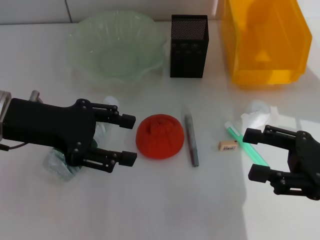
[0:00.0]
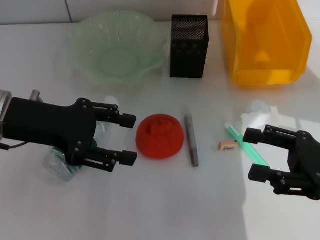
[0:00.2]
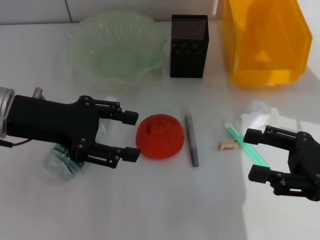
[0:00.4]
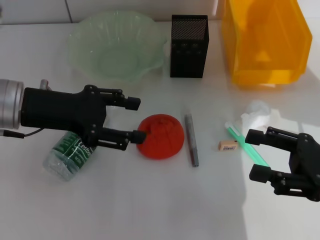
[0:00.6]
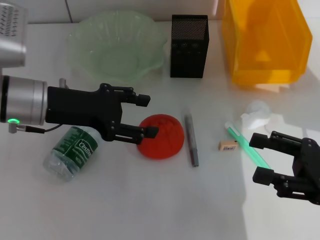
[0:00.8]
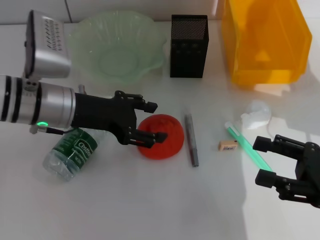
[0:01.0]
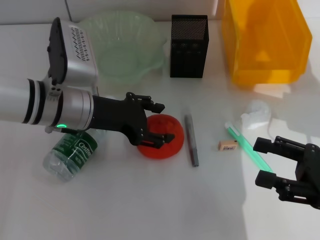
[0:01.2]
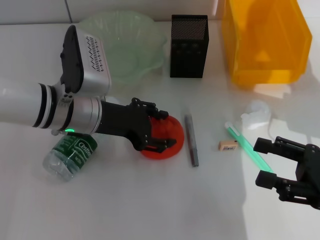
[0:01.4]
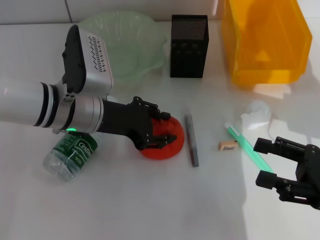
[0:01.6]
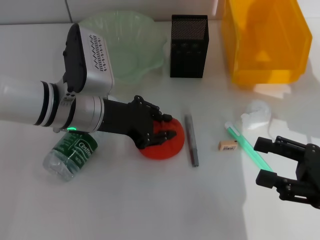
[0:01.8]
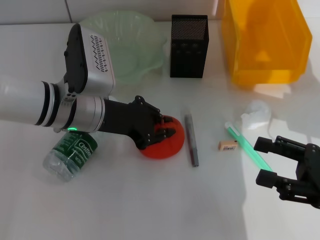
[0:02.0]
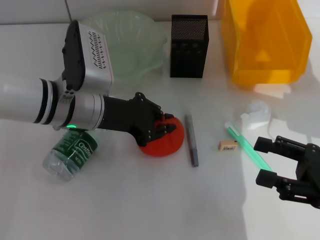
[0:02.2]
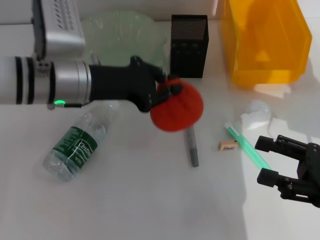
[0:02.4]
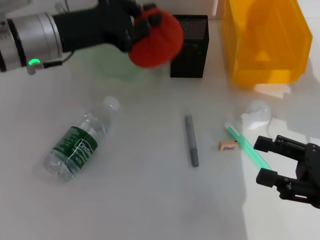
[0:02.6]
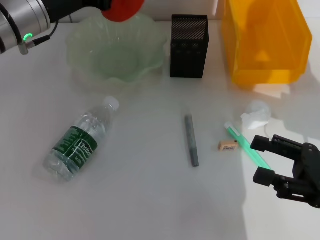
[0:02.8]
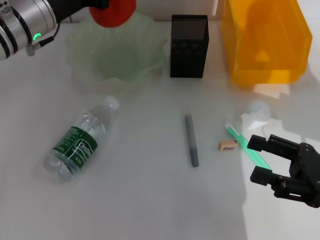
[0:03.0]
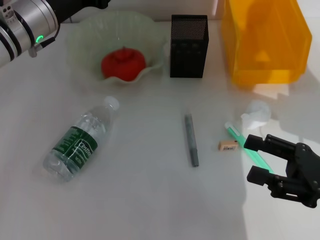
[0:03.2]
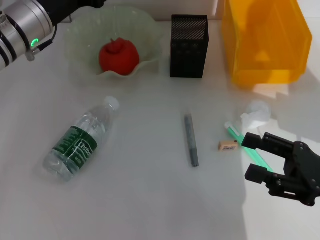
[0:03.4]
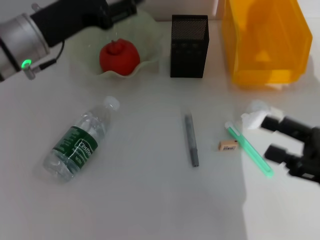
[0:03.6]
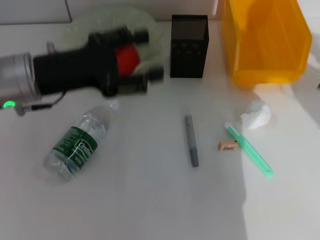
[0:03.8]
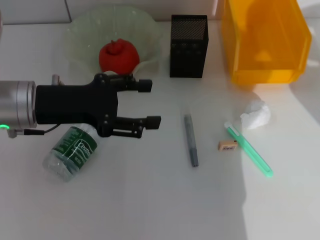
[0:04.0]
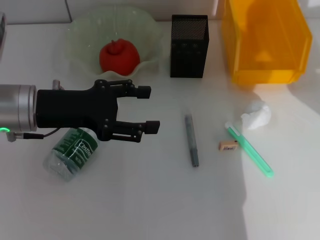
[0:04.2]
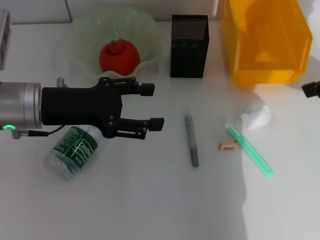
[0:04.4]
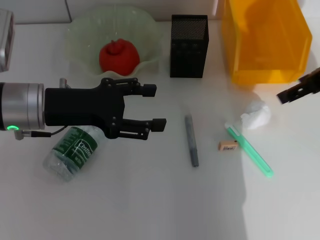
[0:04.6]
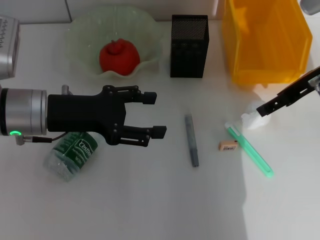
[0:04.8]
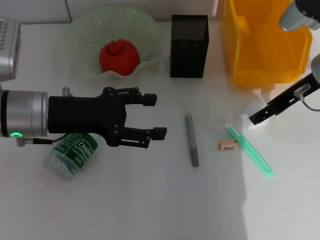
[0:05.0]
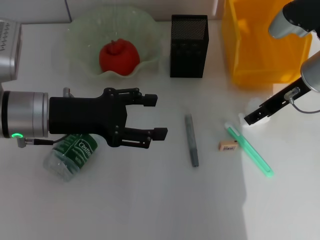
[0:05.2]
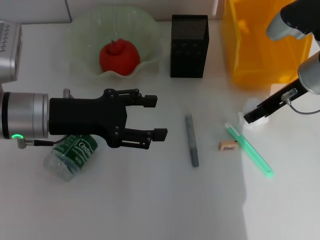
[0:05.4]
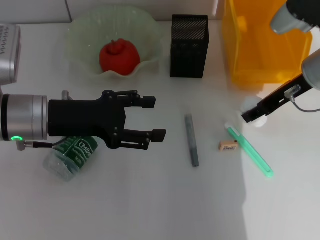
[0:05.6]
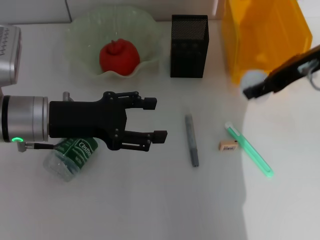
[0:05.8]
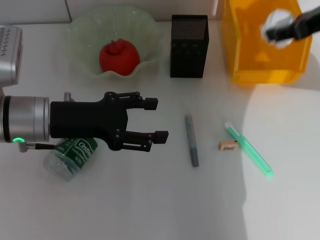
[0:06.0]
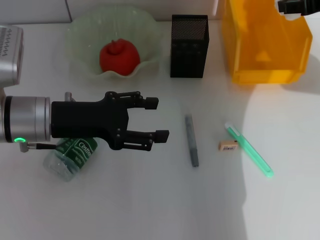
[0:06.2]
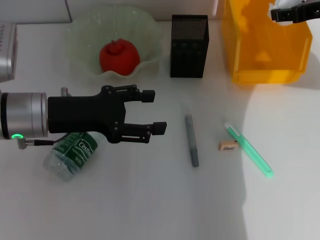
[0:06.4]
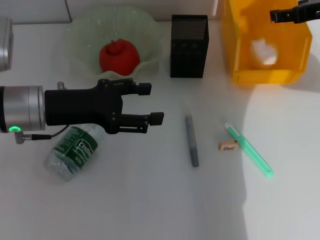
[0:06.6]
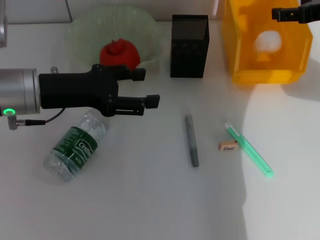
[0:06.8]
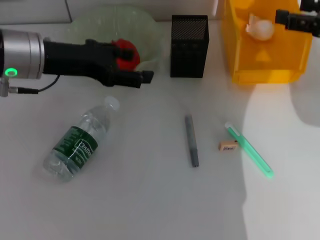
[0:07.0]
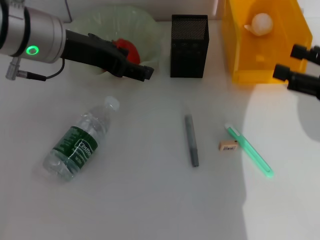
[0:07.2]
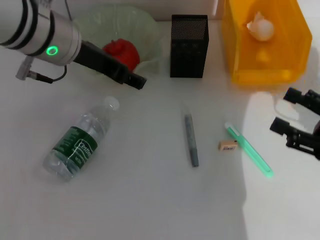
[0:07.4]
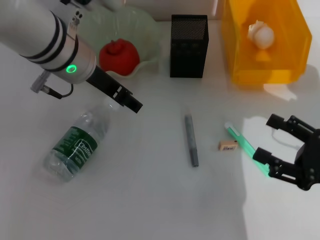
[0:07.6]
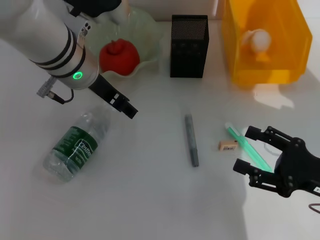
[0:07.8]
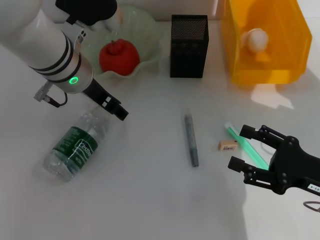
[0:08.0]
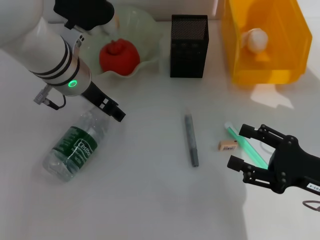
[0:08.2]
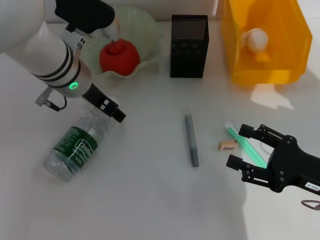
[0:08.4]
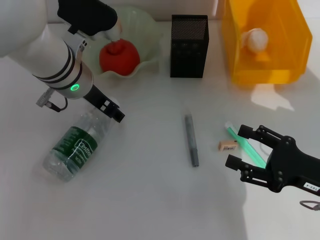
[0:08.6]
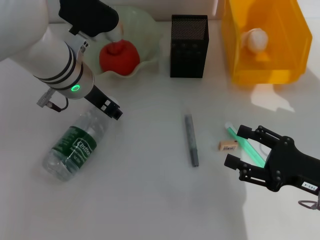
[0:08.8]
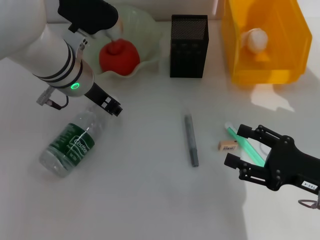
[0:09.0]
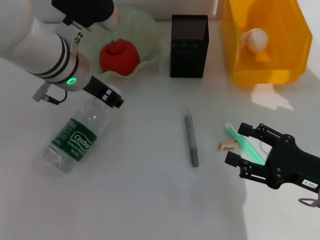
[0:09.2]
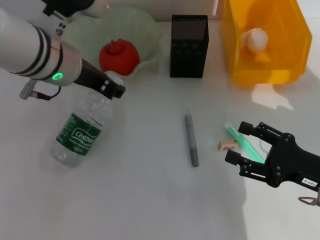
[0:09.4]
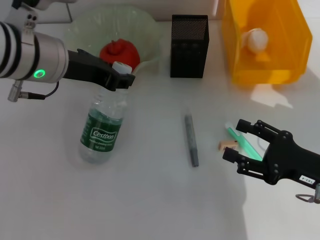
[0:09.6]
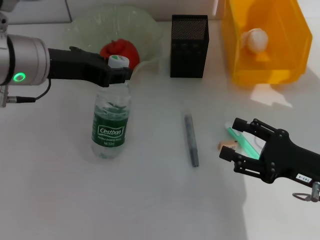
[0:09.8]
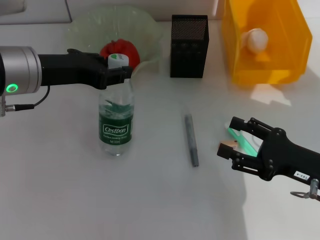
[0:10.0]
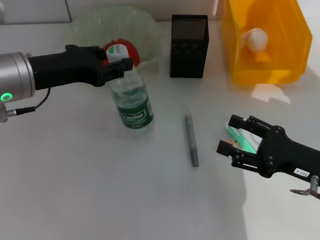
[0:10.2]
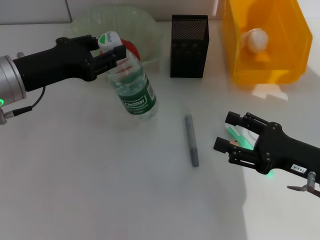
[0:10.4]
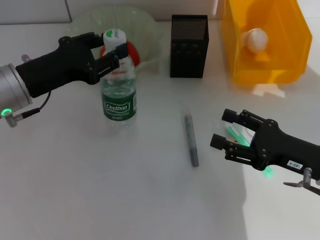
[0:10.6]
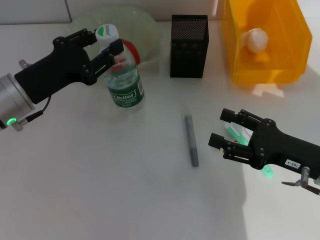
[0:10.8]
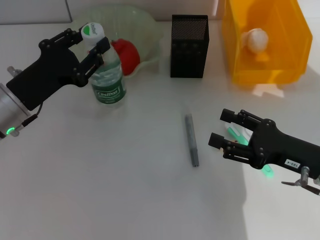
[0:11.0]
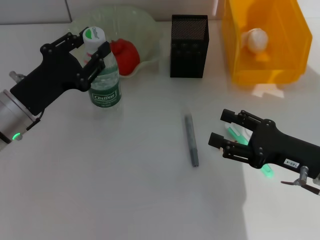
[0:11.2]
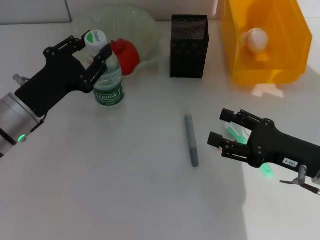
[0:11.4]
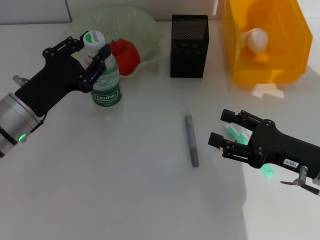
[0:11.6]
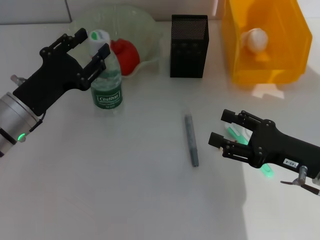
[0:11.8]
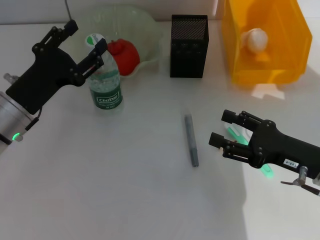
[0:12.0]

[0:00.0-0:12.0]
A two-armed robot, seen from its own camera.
Step, 0.0 to 2.0 s: Grab the orange with the left hand.
Step, 2.2 to 3.4 s: Place the orange into the fruit bowl with the left hand.
Step, 3.6 to 5.4 s: Grab the paper ball with the right hand.
Step, 5.6 to 6.6 s: Place the paper ball into the trash can with the right hand.
Step, 6.8 to 8.8 s: Grab the water bottle with the left hand.
Step, 9.0 to 11.8 s: Place the water bottle on the table with the left hand.
0.0 to 1.6 s: The left gripper moves to the right and downward, some 10 cm.
1.6 to 3.0 s: The left gripper goes approximately 10 cm forward, upward and to the left, and closes up.
3.0 to 4.4 s: The right gripper is displaced upward and forward by approximately 20 cm. Meanwhile the left gripper moves backward, about 10 cm, and opens up.
4.4 to 6.0 s: The right gripper is displaced forward by approximately 5 cm, reaches some 15 cm downward, then returns, and closes.
6.0 to 7.6 s: The left gripper travels upward, to the right and forward by roughly 15 cm, while the right gripper travels downward and backward by some 25 cm, and opens its fingers.
7.6 to 9.0 s: The left gripper moves downward, some 5 cm, and closes its fingers.
9.0 to 10.4 s: The left gripper is displaced to the left and backward by roughly 10 cm.
10.4 to 12.0 s: The left gripper shifts approximately 10 cm downward.

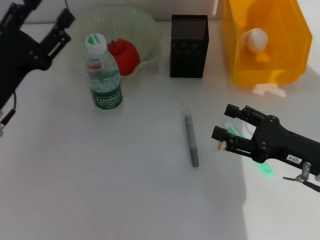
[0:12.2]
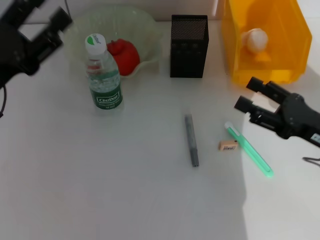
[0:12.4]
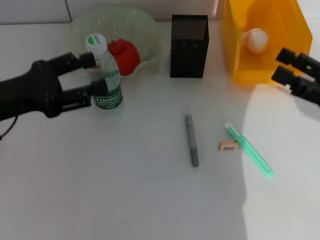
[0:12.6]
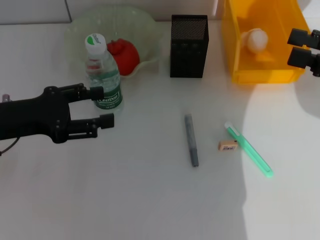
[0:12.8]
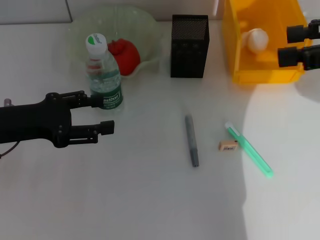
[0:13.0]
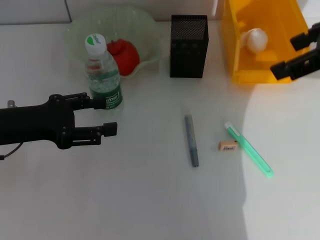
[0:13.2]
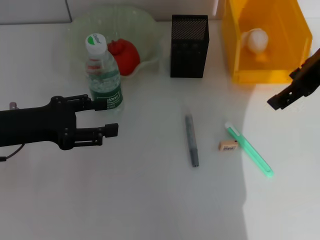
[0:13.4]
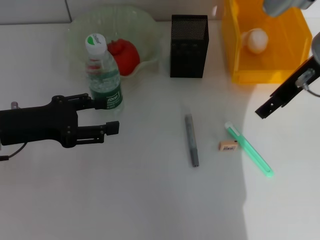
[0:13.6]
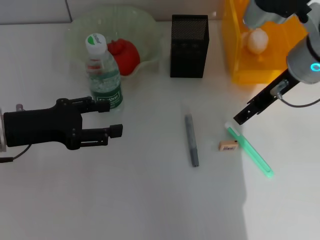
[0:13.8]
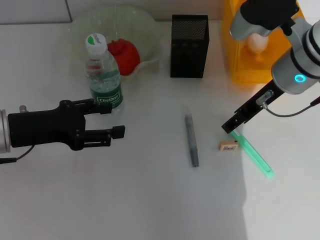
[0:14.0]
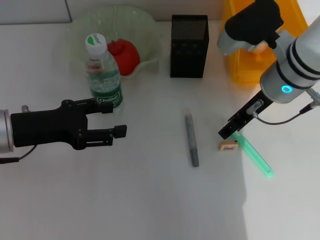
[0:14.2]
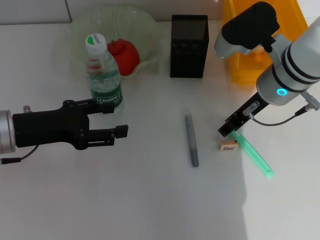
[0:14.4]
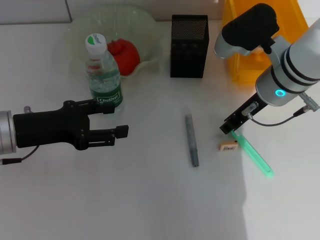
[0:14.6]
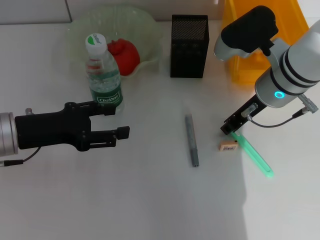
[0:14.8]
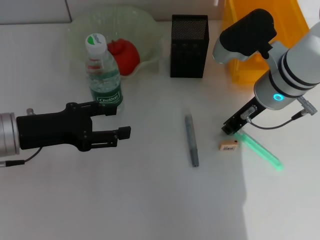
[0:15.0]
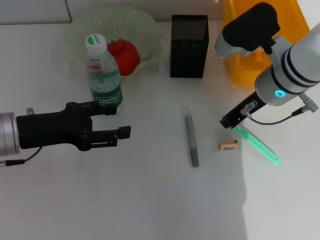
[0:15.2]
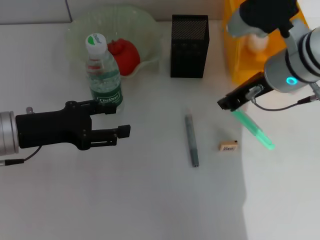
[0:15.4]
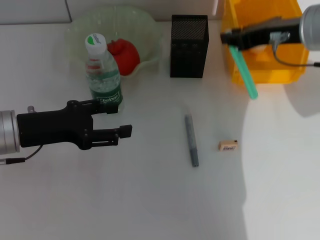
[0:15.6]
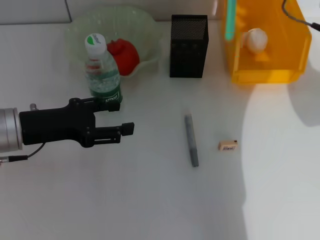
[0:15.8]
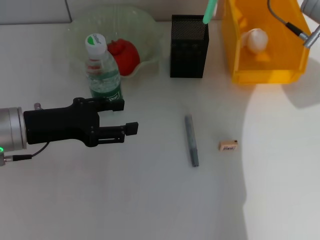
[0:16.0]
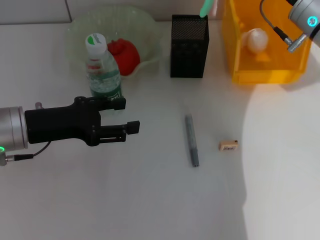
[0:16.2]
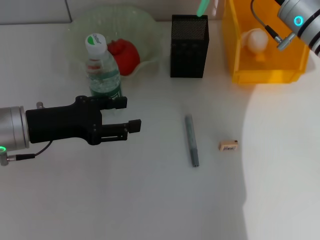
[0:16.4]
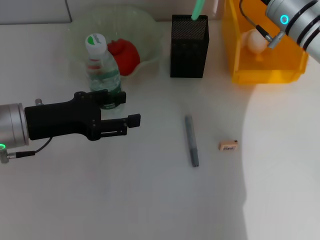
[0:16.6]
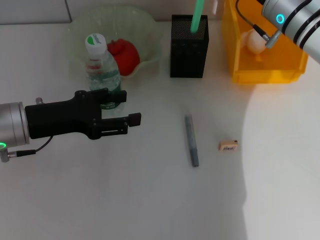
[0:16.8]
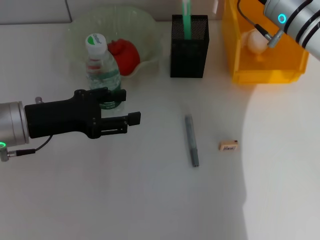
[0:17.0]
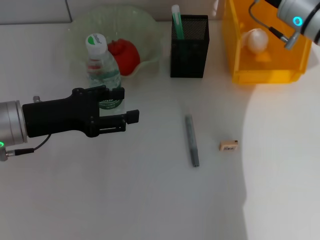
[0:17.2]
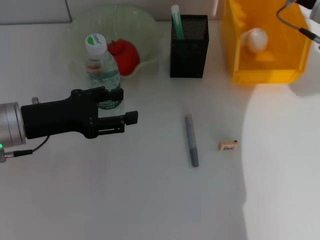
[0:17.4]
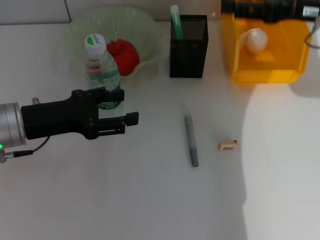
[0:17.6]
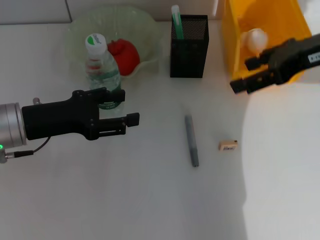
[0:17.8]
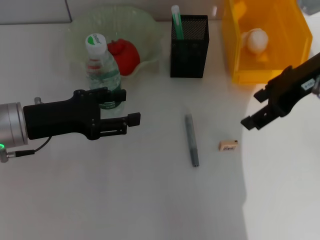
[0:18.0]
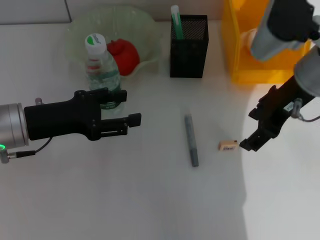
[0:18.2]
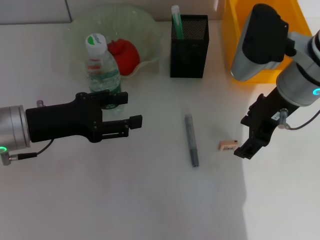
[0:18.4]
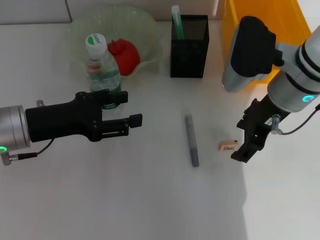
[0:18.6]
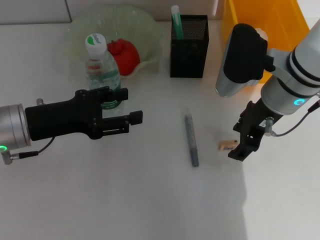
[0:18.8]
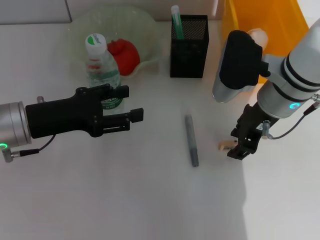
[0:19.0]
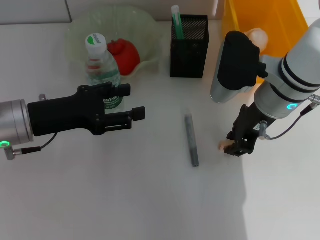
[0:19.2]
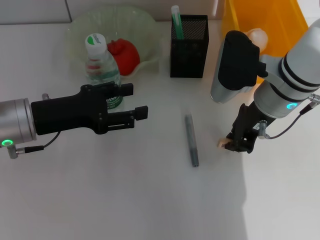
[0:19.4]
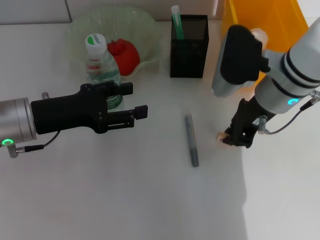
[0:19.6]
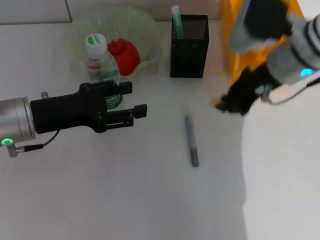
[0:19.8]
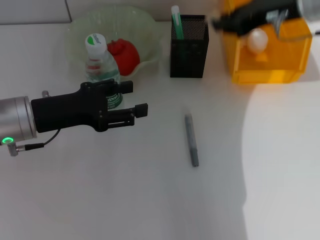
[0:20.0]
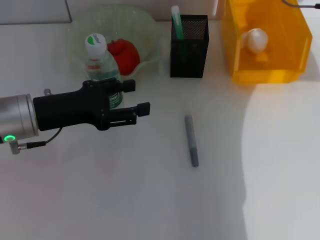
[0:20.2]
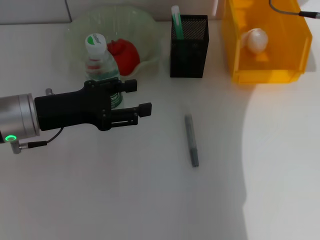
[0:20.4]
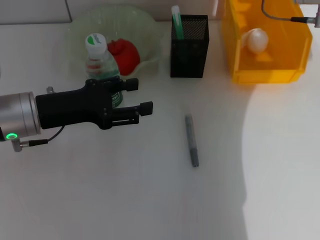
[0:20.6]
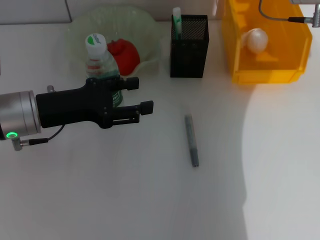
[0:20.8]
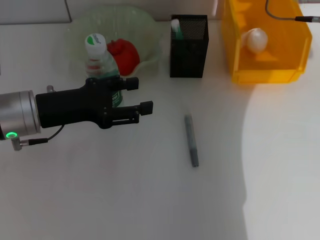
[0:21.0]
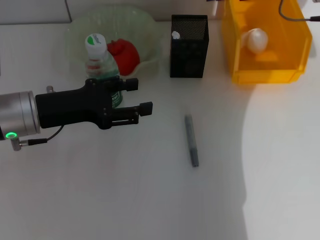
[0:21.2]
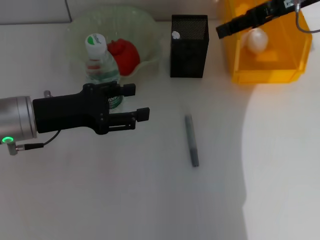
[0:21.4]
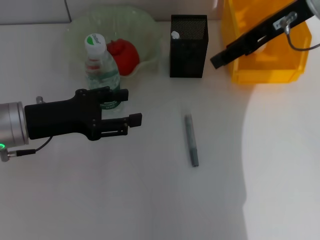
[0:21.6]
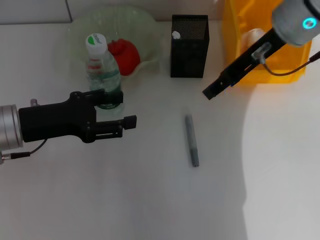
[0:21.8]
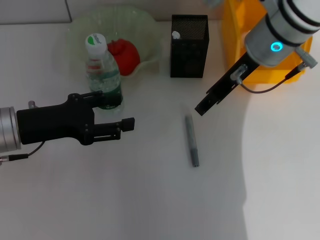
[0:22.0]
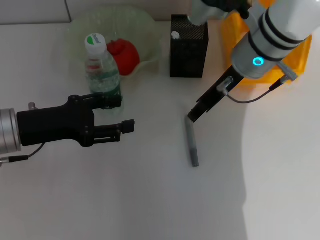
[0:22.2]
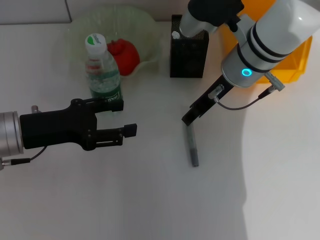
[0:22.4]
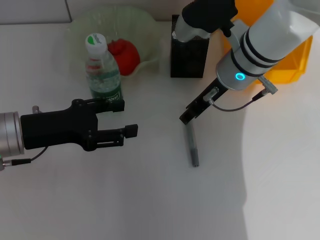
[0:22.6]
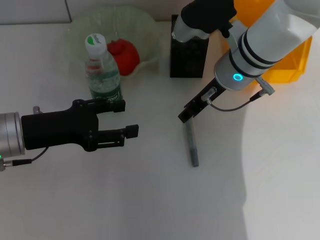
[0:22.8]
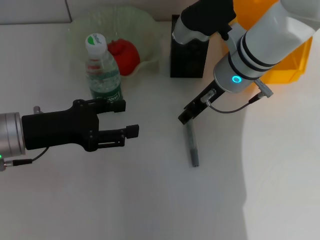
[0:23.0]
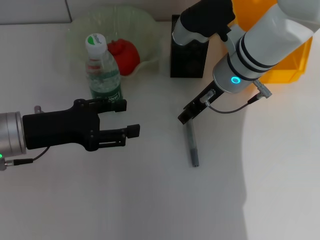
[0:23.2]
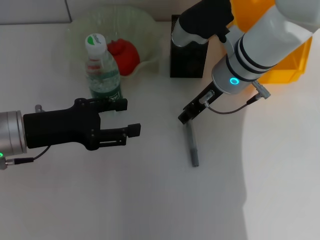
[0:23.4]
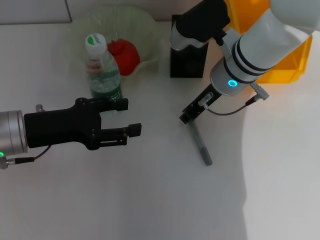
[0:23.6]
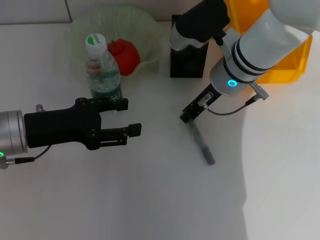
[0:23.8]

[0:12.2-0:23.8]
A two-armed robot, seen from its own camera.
Step, 12.2 to 14.8 s: Grab the blue utility knife with the right hand.
Step, 15.0 to 17.0 s: Place the blue utility knife into the pen holder with the right hand.
Step, 17.2 to 19.2 s: Grab the eraser with the right hand.
Step, 19.6 to 20.6 s: Put the eraser into the pen holder with the right hand.
12.2 to 13.6 s: The right gripper moves upward and forward, about 20 cm.
13.6 to 15.0 s: The right gripper is displaced downward by some 10 cm, and closes up.
15.0 to 16.6 s: The right gripper travels forward by approximately 5 cm, and moves roughly 10 cm upward and comes back.
16.6 to 18.0 s: The right gripper is displaced upward and backward by about 10 cm, and opens its fingers.
18.0 to 19.4 s: The right gripper shifts some 10 cm downward and to the left, and closes its fingers.
19.4 to 21.0 s: The right gripper moves forward, to the right and upward, roughly 15 cm.
21.0 to 22.4 s: The right gripper goes some 15 cm to the left, backward and downward.
22.4 to 23.8 s: There are only small adjustments of the grippers.
